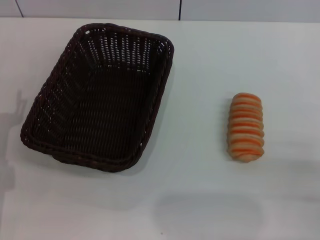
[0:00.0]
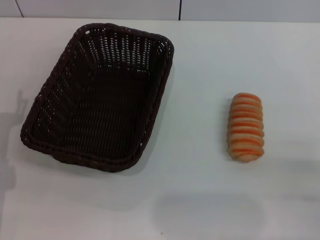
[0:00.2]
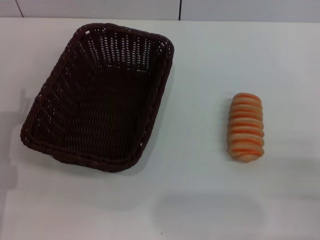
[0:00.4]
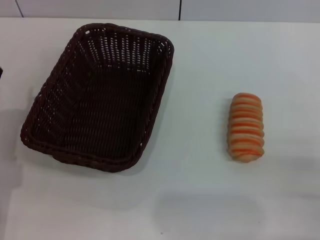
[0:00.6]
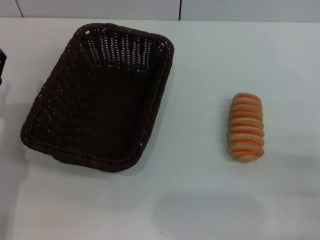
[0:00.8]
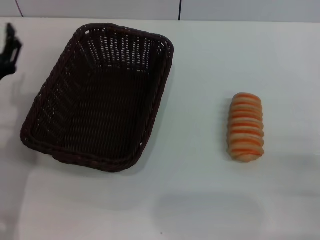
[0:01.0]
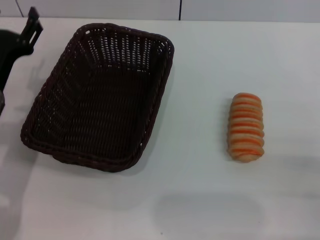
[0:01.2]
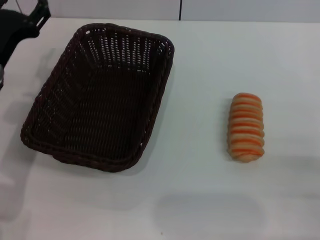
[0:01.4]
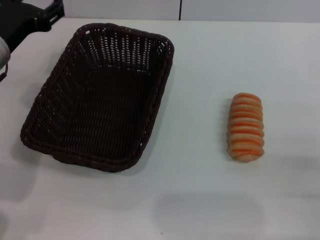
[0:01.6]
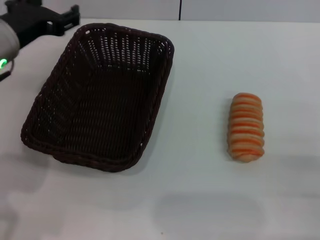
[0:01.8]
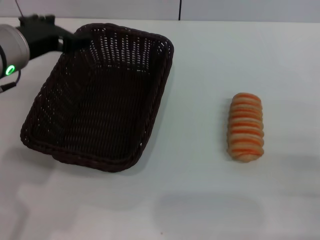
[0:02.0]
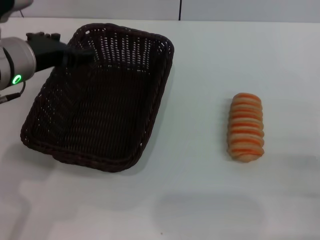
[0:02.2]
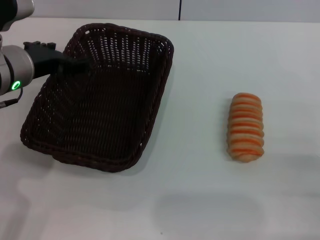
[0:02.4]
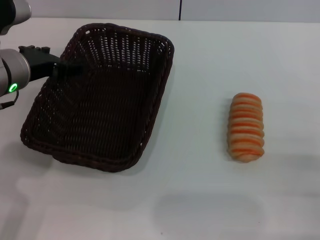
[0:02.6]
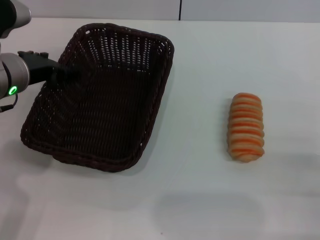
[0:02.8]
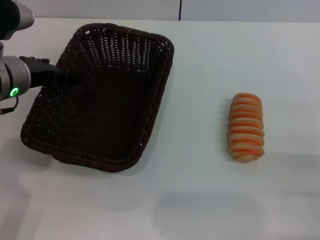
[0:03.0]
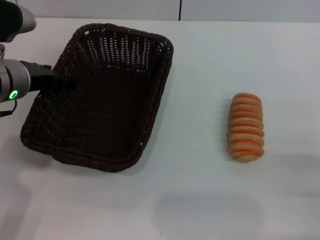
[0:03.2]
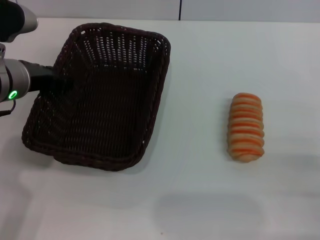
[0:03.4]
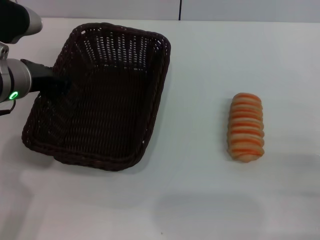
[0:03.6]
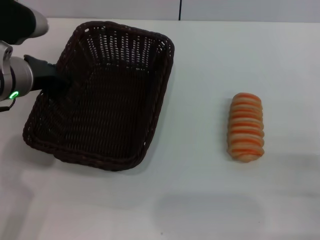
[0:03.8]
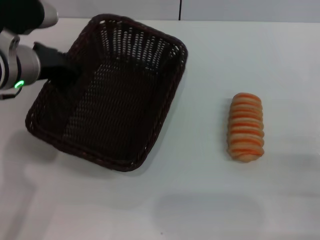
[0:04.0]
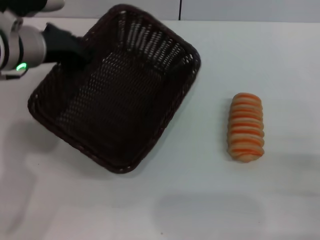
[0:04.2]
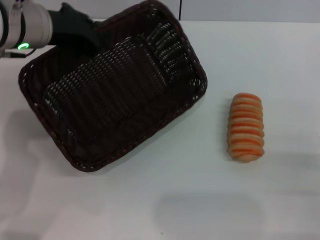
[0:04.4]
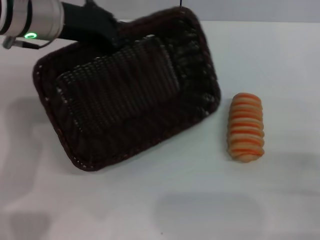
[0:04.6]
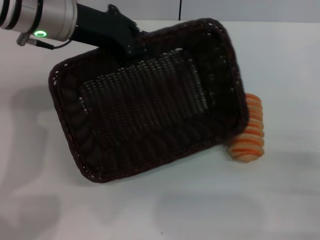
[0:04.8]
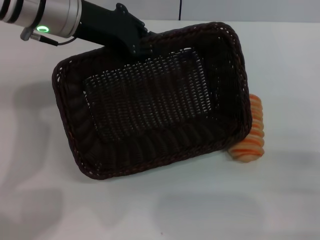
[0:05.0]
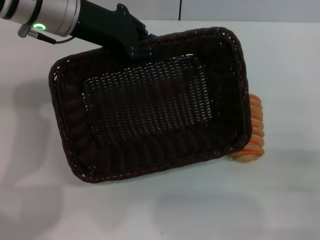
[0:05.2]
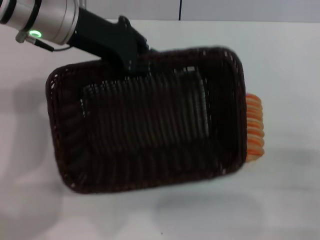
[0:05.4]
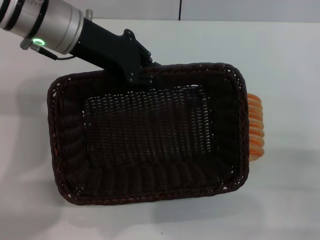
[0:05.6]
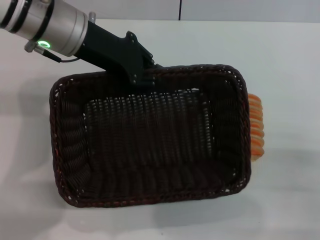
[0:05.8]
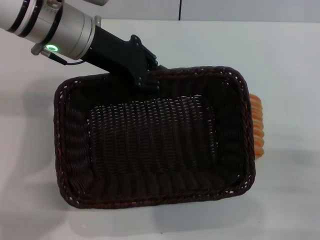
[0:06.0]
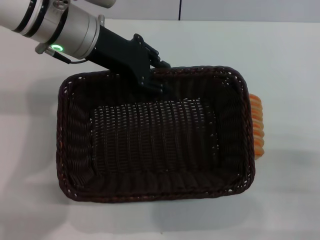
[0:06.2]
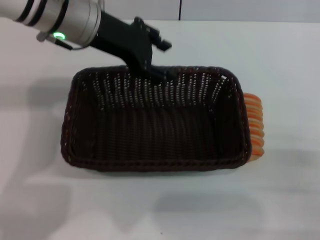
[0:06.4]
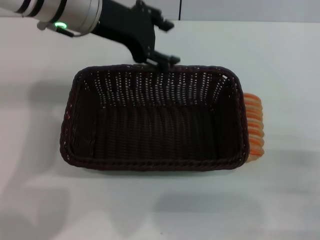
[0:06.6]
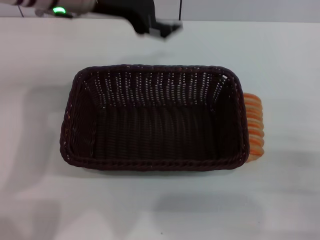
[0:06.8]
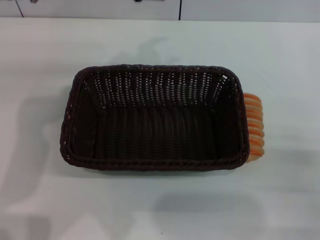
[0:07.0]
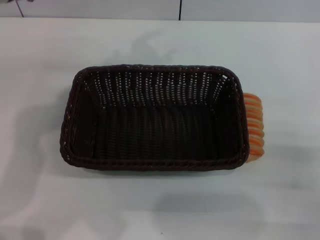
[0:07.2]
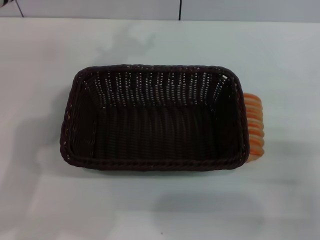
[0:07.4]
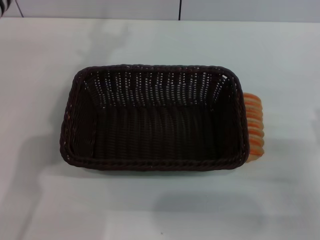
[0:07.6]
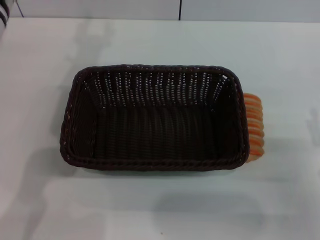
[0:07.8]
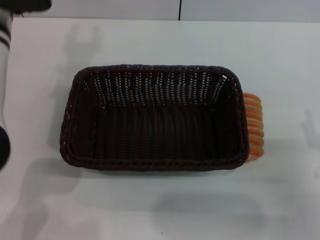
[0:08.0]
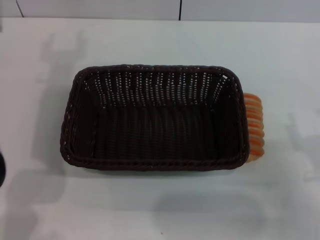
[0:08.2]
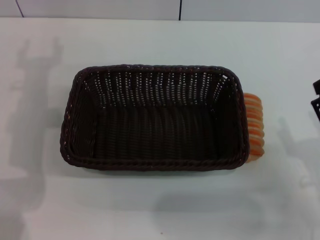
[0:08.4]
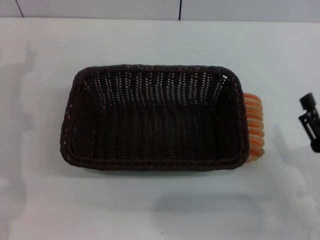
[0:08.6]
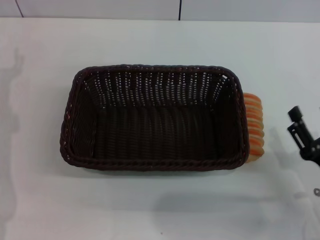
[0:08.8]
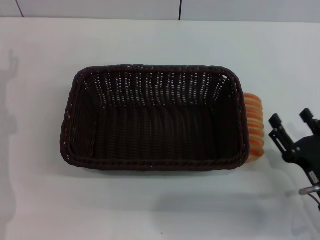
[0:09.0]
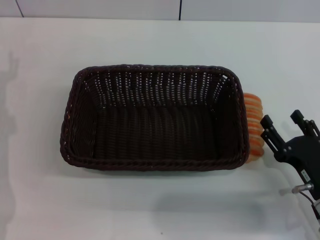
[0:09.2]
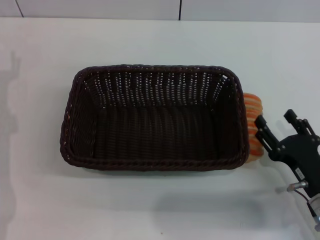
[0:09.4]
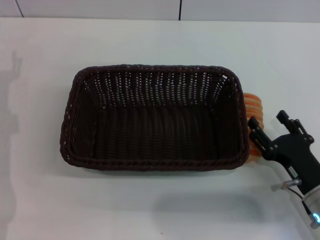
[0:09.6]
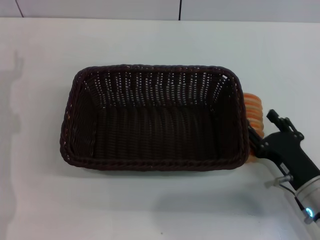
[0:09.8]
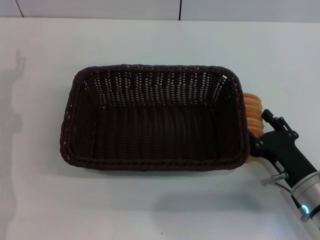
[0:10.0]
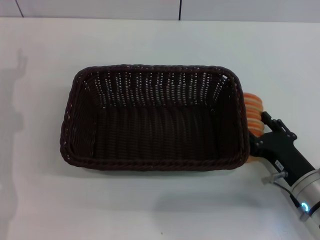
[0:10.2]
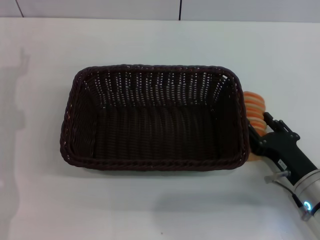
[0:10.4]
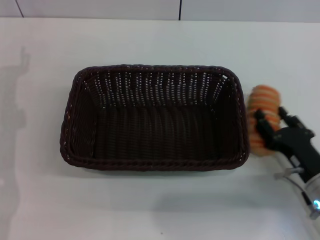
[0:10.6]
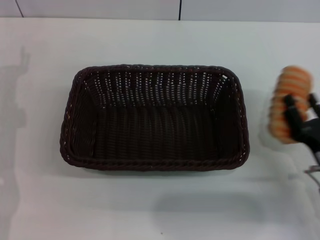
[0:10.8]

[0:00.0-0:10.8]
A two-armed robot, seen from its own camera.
Step, 0:00.0 to 0:04.4: Pick up the dark basket with the left gripper.
Step, 0:04.6 to 0:06.6: Place the dark basket in the center of view with the left gripper.
Step, 0:06.8 to 0:10.6: Pick up the long bread with the right gripper.
0:00.0 to 0:01.6: The left gripper moves upward, forward and to the right, approximately 15 cm.
0:03.0 to 0:04.6: The left gripper heads upward, covering about 5 cm, and closes up.
0:06.2 to 0:07.8: The left gripper ends up some 5 cm from where it was, and opens its fingers.
0:07.8 to 0:09.2: The left gripper travels downward and to the left by some 20 cm. Meanwhile the right gripper ends up about 5 cm from where it was.
0:09.2 to 0:10.8: The right gripper closes its fingers.

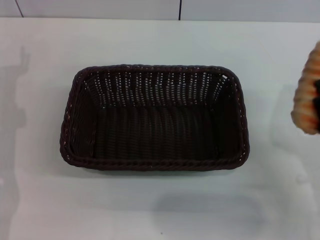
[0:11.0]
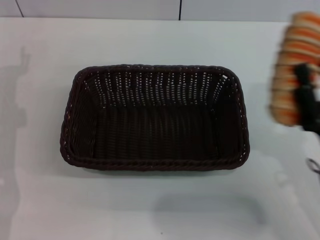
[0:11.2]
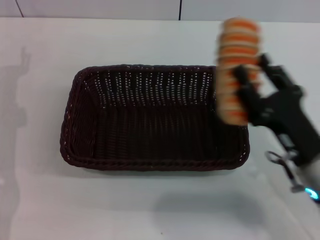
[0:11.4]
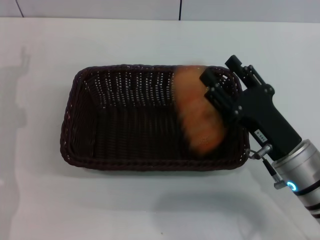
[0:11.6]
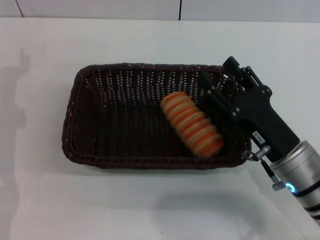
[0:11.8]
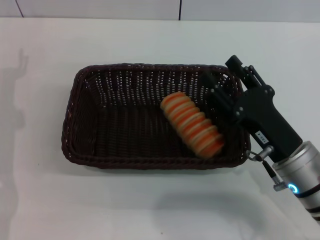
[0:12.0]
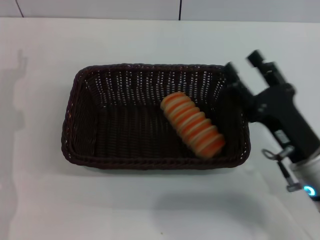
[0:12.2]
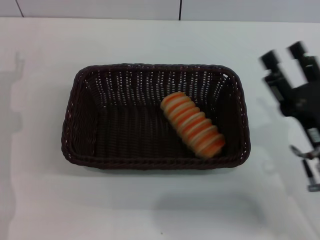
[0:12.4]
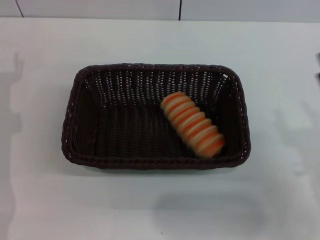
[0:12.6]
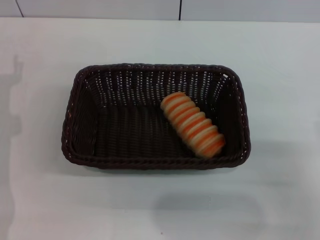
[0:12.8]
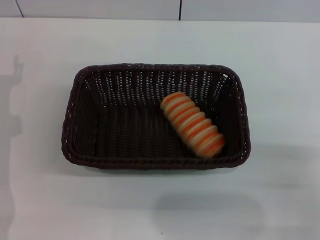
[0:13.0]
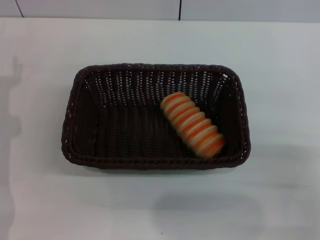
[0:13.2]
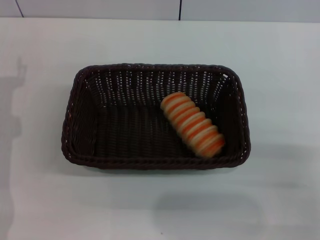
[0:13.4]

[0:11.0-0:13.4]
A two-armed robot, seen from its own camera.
Step, 0:11.0 to 0:12.2: Place the long bread into the dark basket with the right gripper.
0:11.0 to 0:12.2: The right gripper moves to the left, about 5 cm, and opens.
0:12.2 to 0:13.4: The right gripper moves to the right, some 10 cm.
